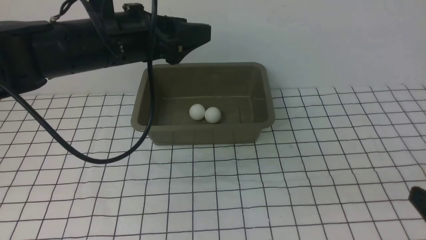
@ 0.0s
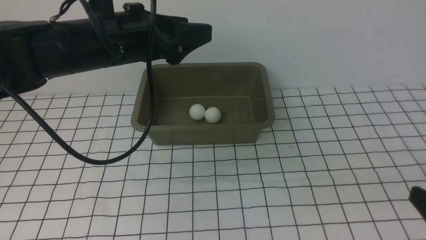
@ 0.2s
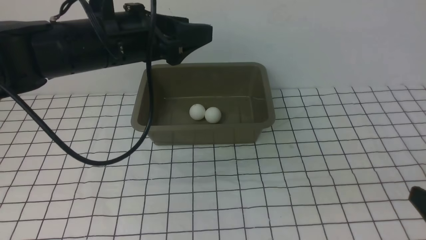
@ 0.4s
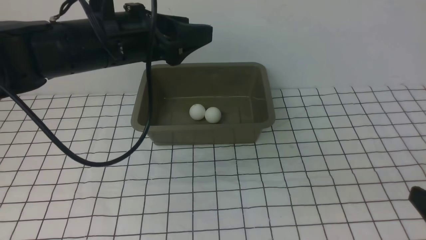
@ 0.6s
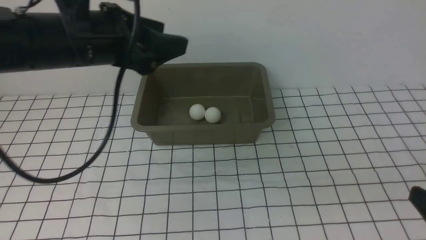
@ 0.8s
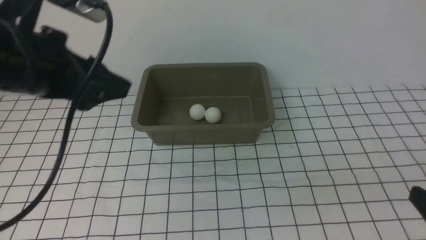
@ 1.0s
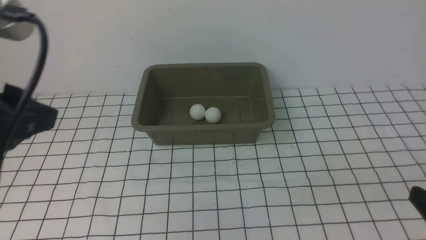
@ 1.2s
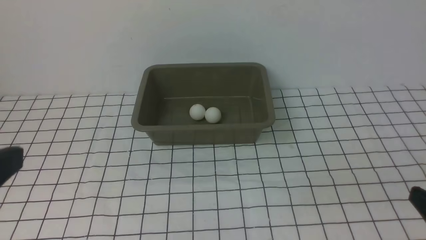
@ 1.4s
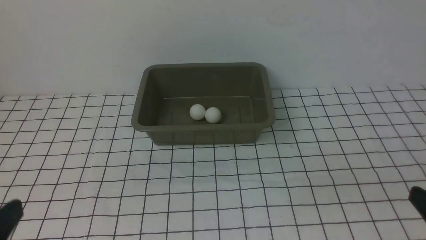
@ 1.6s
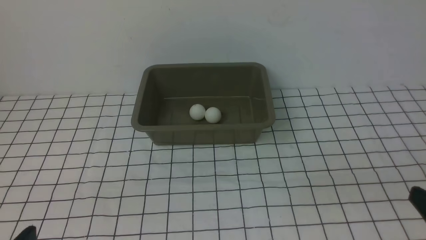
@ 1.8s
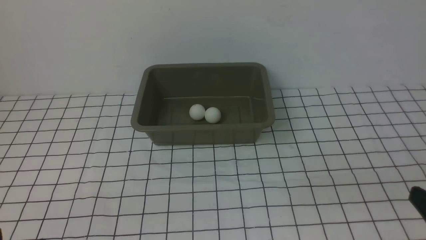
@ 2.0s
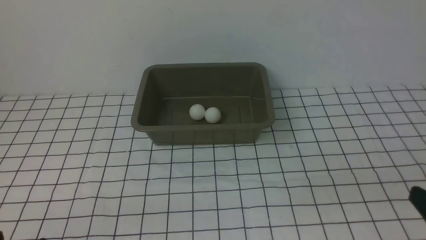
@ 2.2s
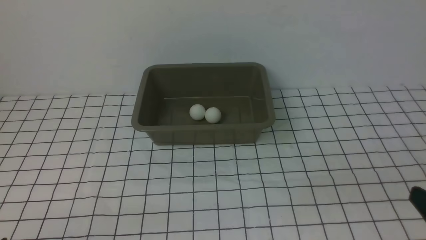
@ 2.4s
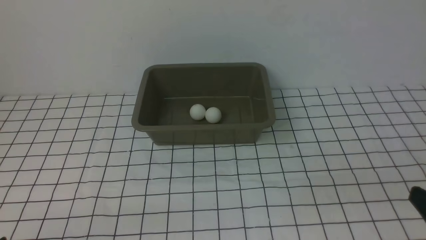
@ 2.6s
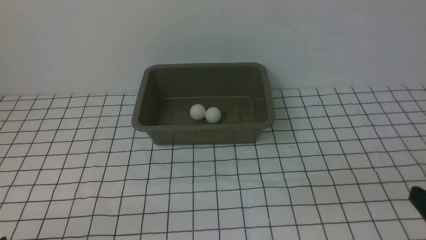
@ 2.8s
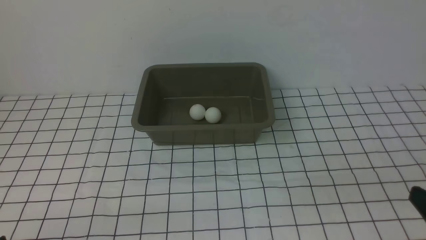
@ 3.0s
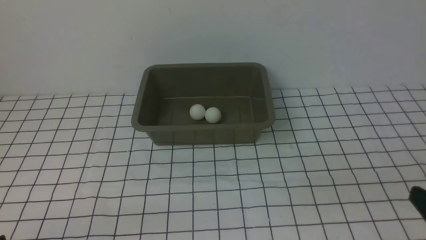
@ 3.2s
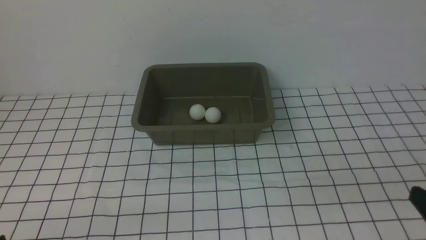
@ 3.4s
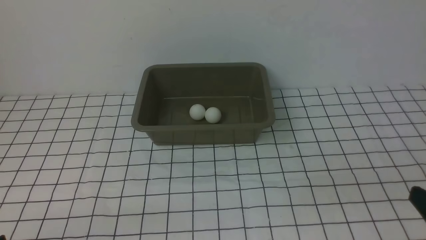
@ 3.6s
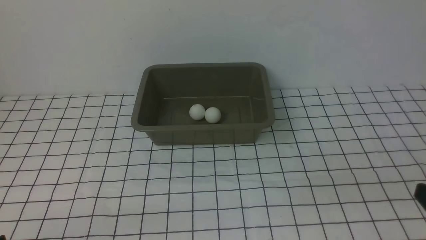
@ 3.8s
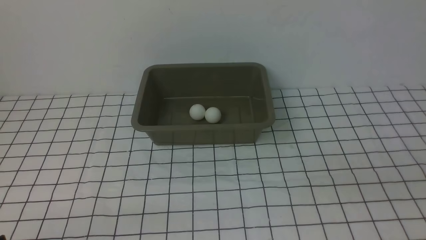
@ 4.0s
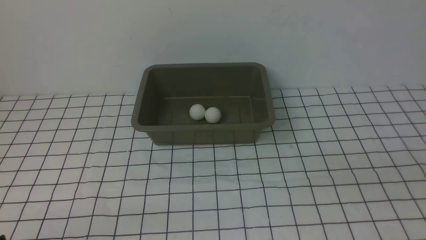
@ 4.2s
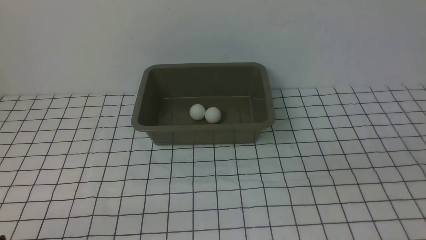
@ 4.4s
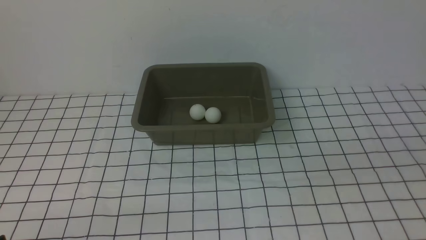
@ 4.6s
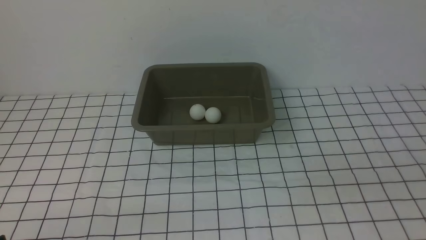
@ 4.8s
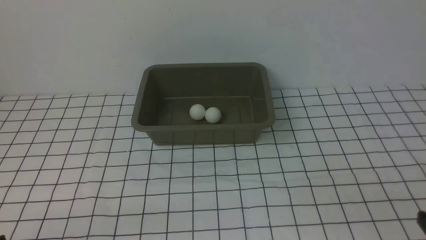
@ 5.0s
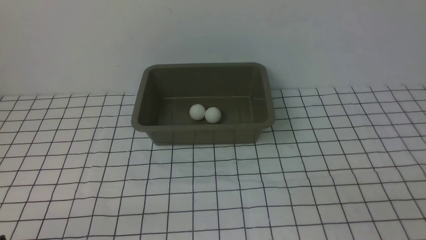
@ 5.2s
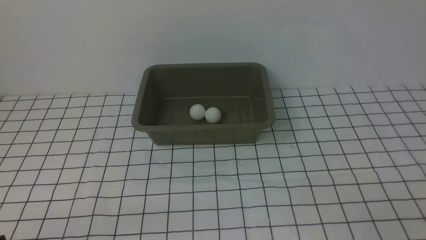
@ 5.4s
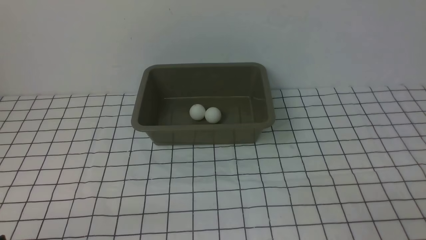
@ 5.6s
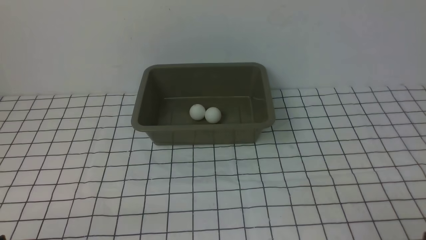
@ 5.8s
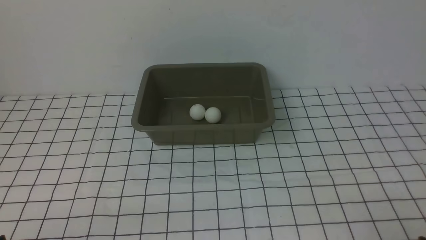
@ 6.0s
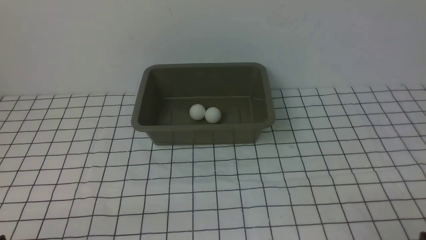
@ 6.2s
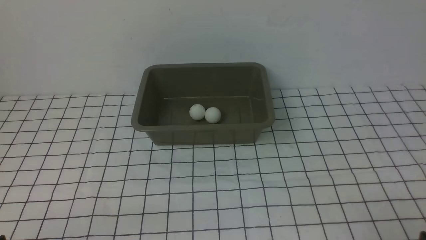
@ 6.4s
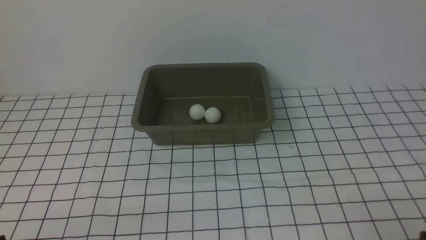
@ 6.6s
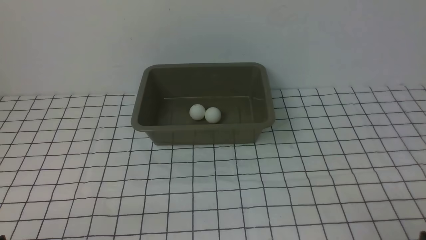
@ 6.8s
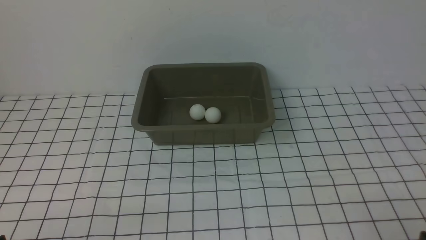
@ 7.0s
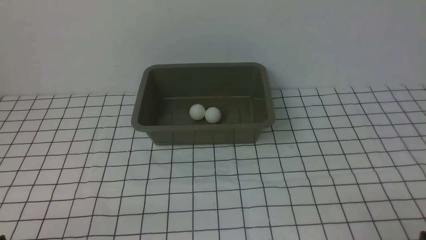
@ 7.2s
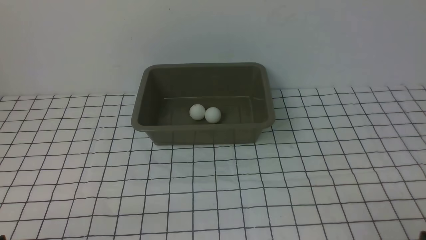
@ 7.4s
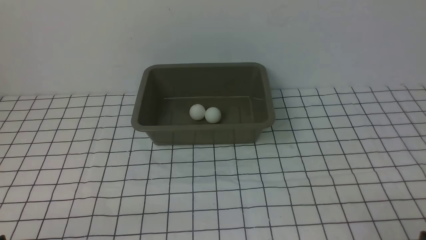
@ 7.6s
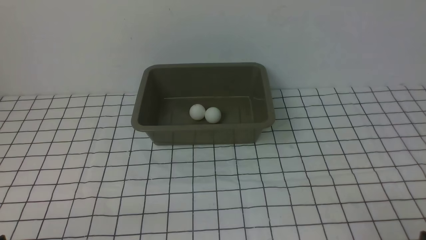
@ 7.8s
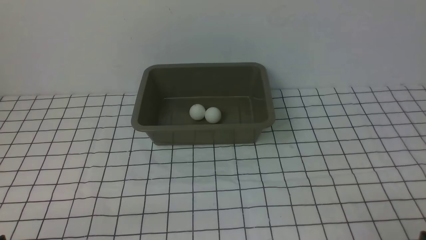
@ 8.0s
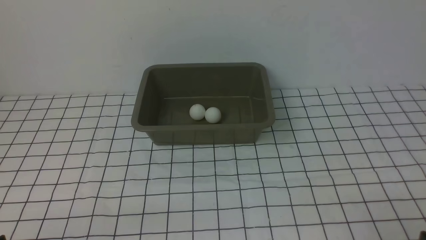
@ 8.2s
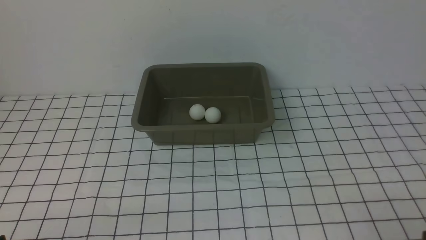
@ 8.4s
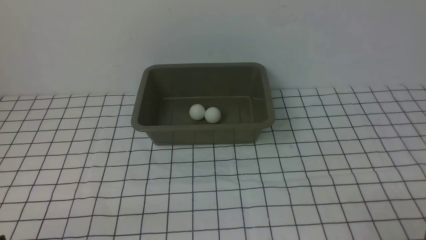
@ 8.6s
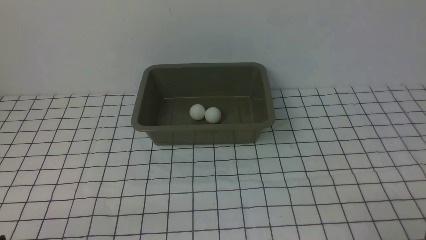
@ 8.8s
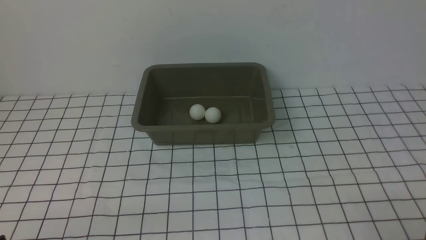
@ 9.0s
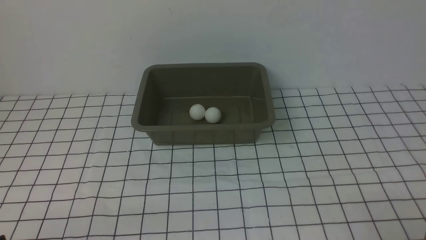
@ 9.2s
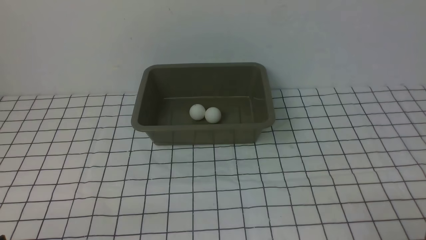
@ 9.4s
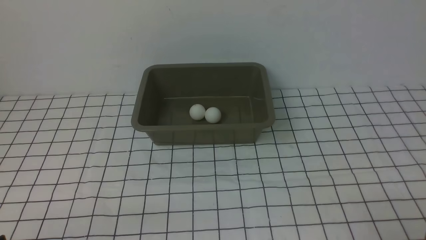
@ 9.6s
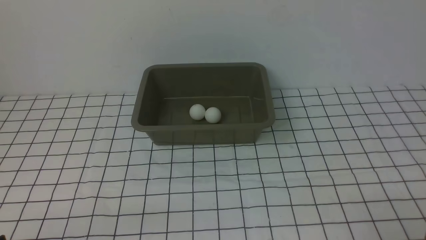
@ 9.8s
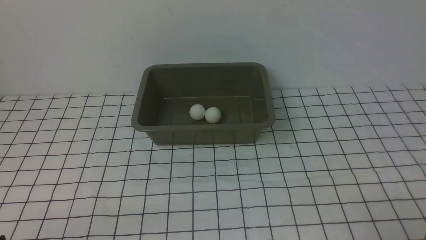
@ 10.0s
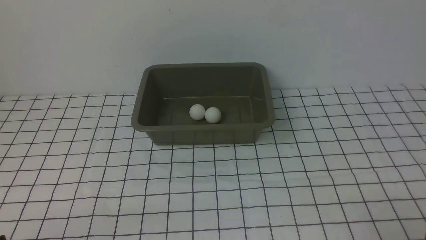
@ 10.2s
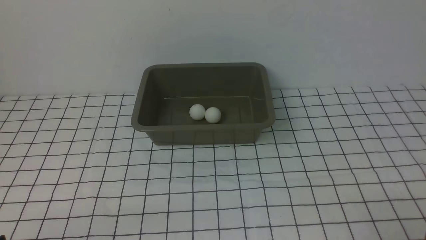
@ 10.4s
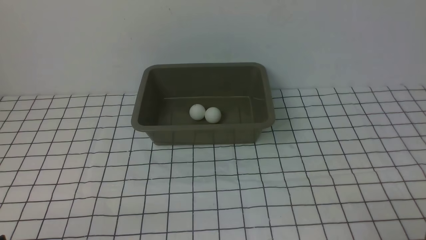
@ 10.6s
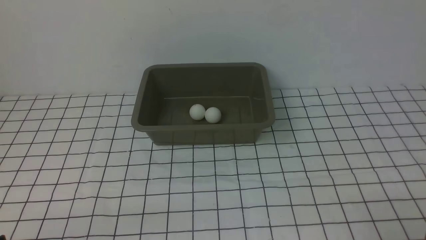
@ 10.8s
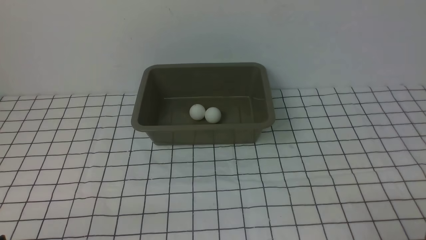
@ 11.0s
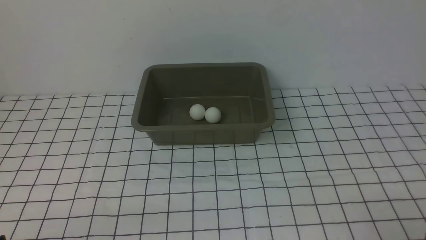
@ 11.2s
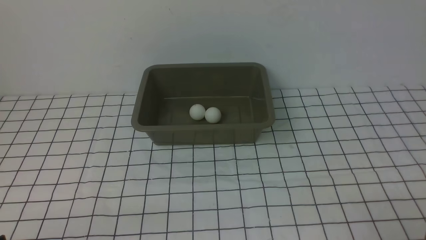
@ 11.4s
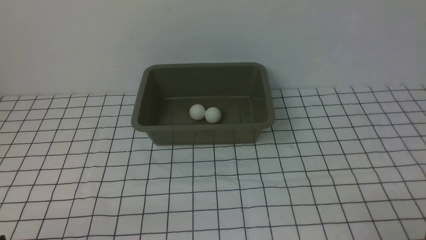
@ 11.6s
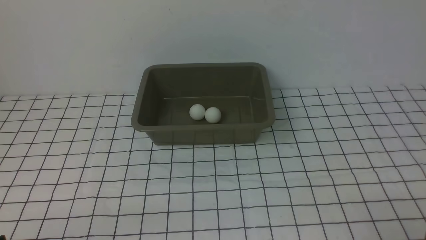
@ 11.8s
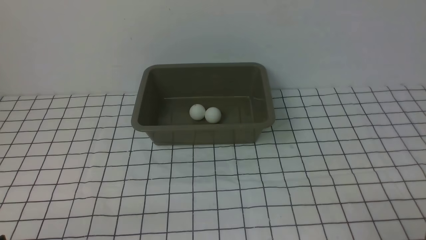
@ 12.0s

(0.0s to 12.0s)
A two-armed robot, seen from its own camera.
0.0s - 1.6s: The left gripper moves backward, approximately 25 cm.
1.6s - 3.0s: The left gripper shifts roughly 20 cm downward.
6.0s - 12.0s: Neither gripper changes place.

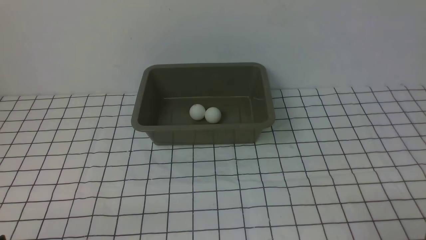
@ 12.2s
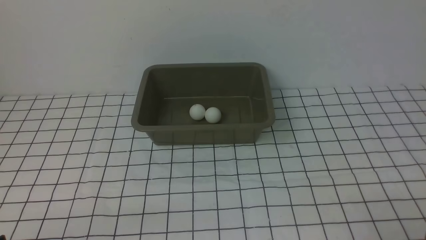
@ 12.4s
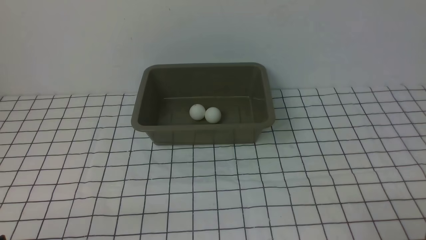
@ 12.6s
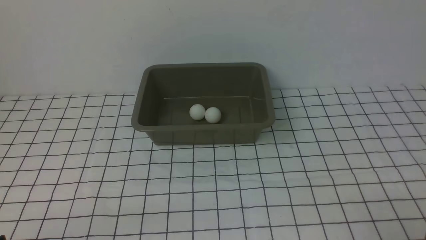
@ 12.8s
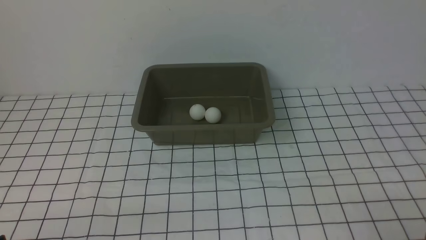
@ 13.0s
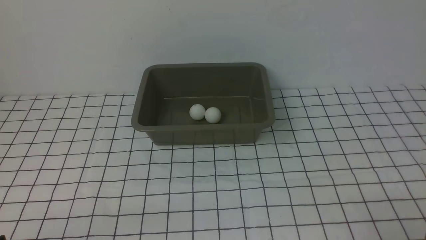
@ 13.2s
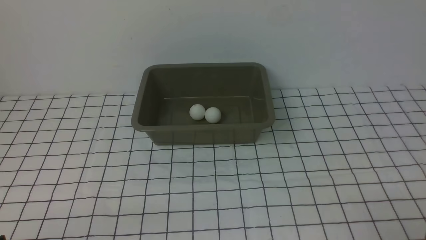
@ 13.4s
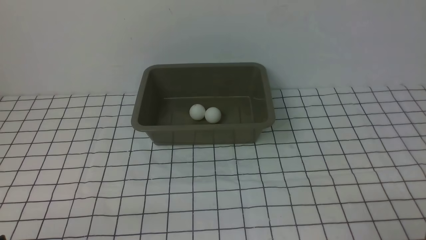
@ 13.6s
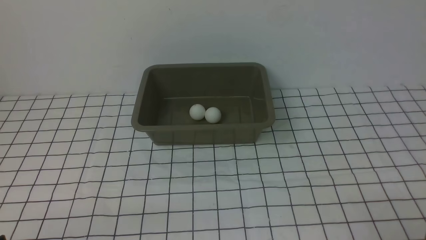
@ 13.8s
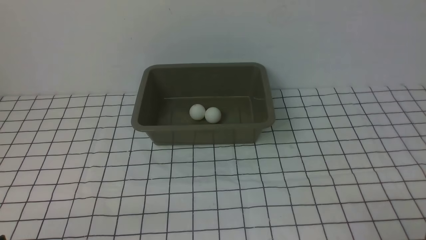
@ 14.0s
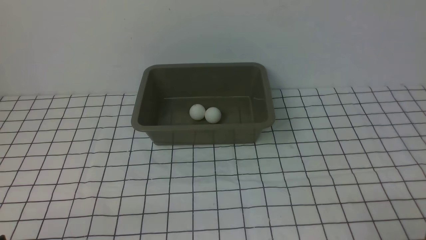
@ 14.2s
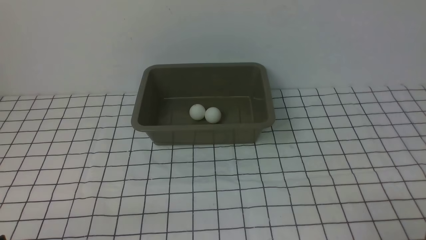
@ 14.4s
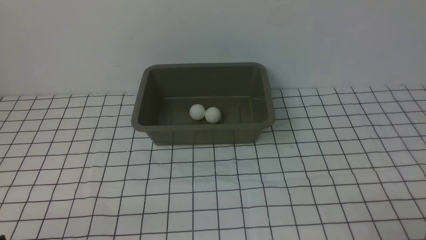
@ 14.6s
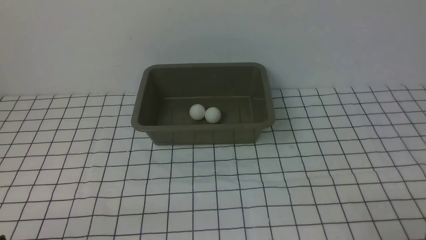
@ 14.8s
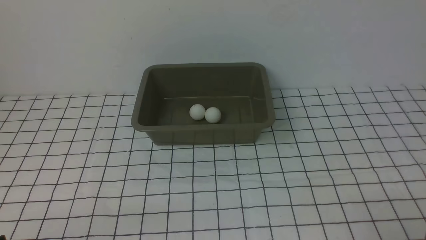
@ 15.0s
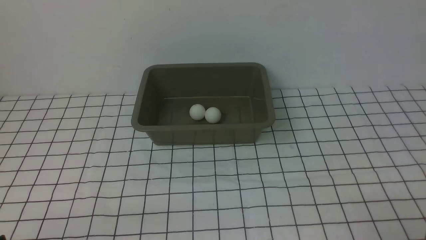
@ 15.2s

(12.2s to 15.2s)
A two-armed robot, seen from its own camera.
12.2s - 15.2s: Neither gripper changes place.
